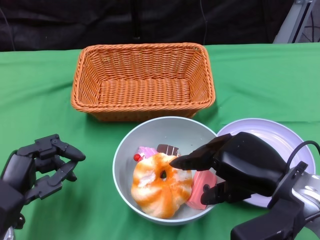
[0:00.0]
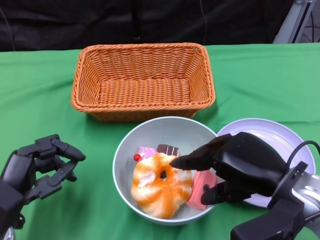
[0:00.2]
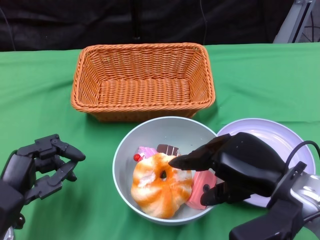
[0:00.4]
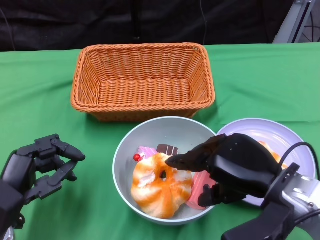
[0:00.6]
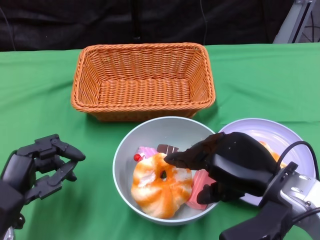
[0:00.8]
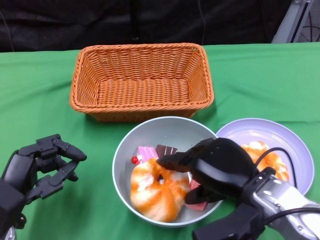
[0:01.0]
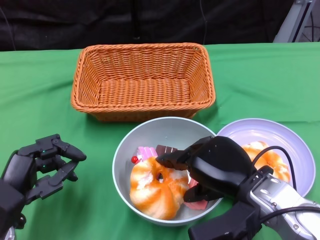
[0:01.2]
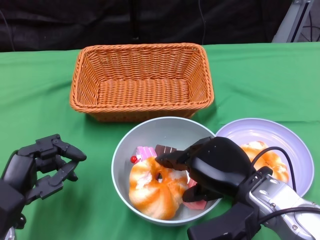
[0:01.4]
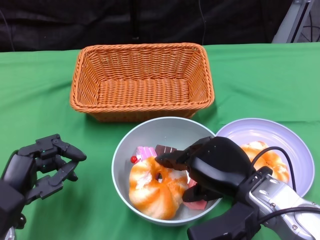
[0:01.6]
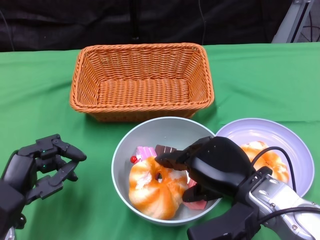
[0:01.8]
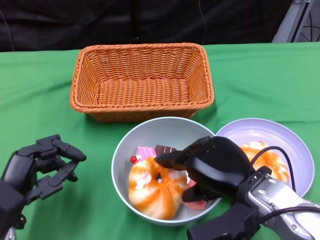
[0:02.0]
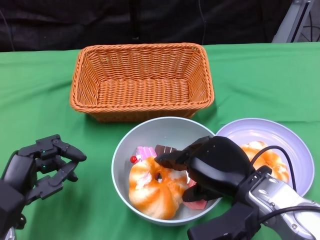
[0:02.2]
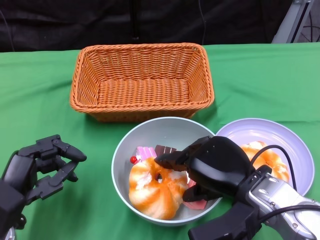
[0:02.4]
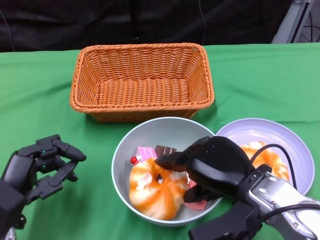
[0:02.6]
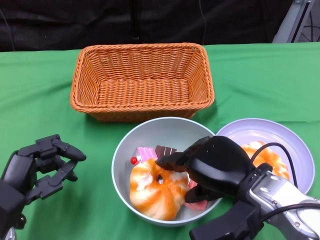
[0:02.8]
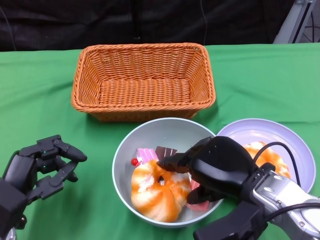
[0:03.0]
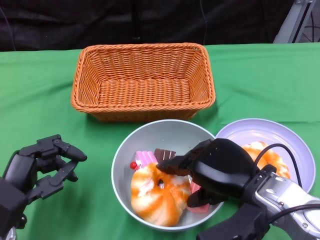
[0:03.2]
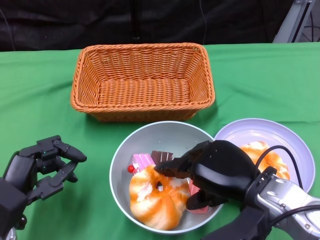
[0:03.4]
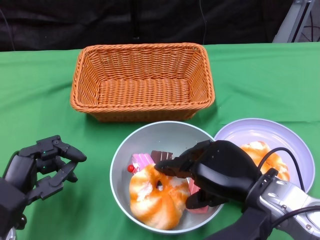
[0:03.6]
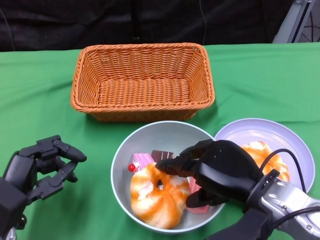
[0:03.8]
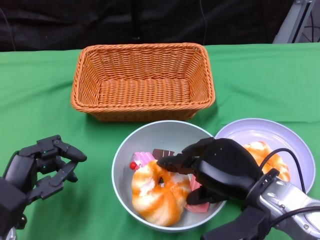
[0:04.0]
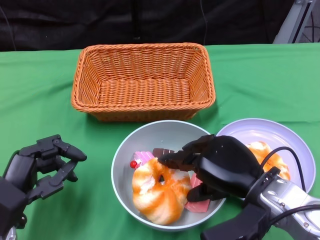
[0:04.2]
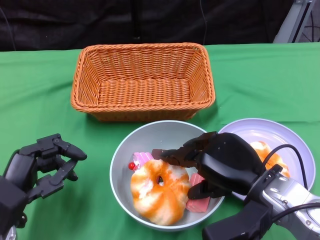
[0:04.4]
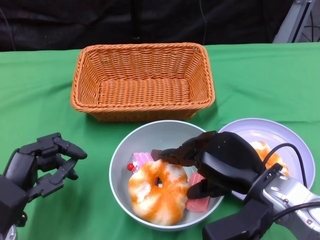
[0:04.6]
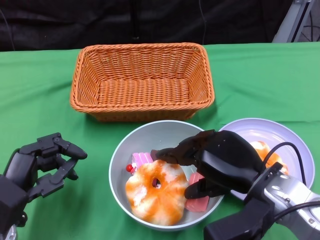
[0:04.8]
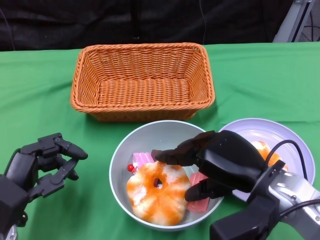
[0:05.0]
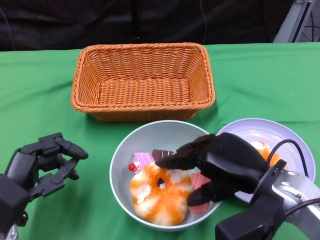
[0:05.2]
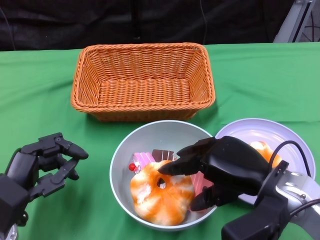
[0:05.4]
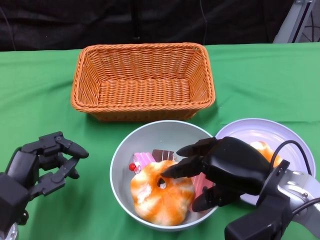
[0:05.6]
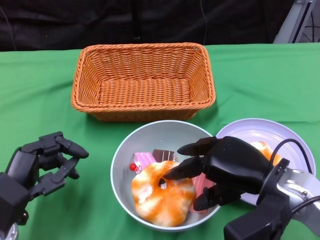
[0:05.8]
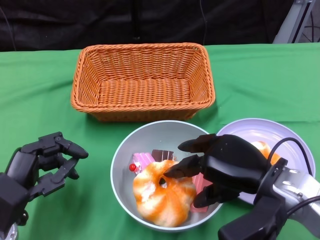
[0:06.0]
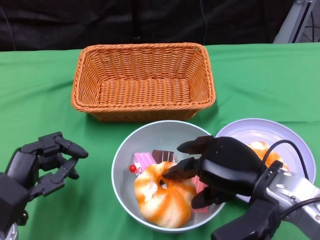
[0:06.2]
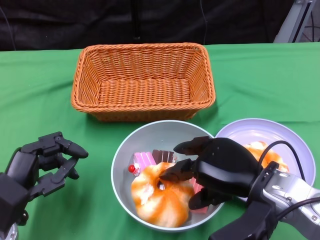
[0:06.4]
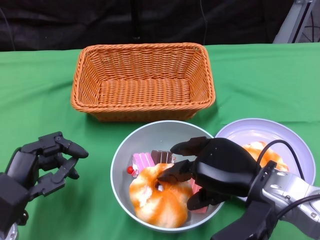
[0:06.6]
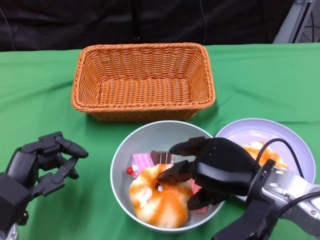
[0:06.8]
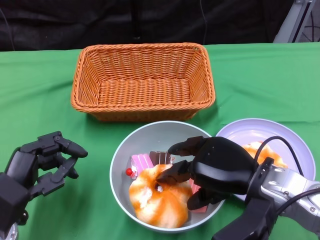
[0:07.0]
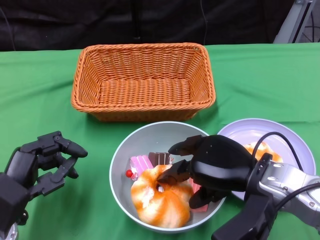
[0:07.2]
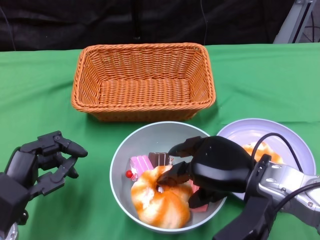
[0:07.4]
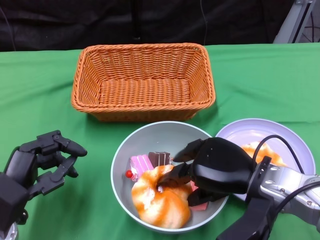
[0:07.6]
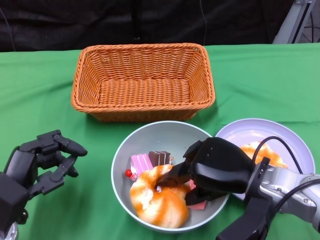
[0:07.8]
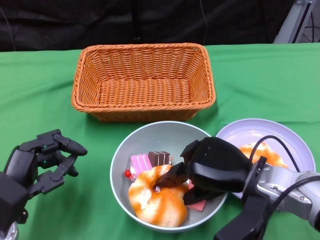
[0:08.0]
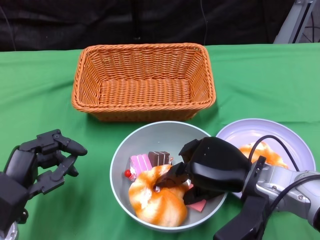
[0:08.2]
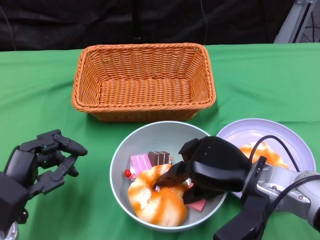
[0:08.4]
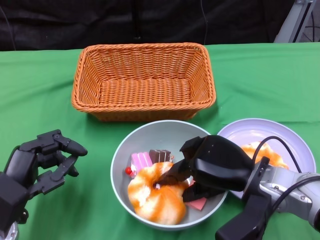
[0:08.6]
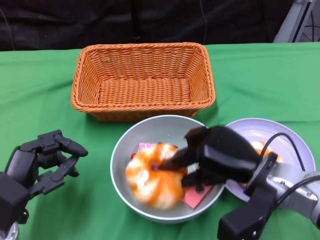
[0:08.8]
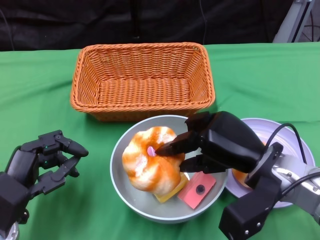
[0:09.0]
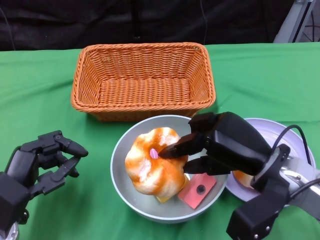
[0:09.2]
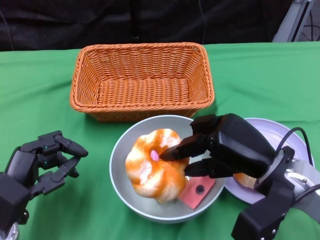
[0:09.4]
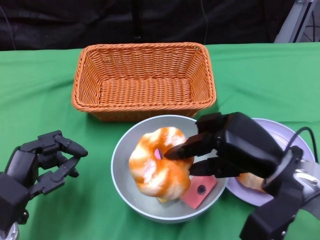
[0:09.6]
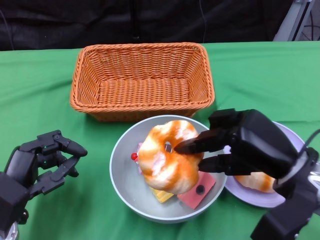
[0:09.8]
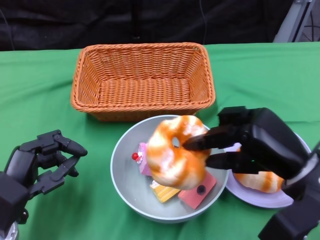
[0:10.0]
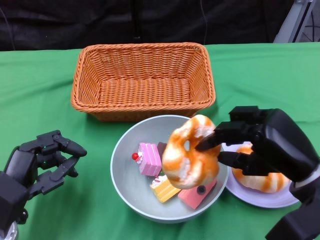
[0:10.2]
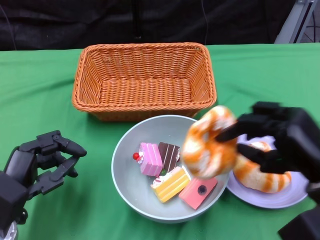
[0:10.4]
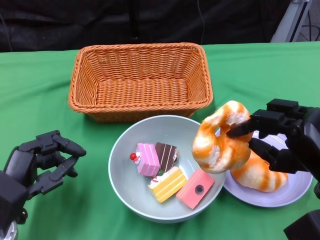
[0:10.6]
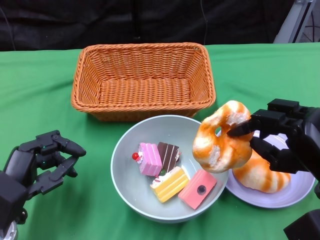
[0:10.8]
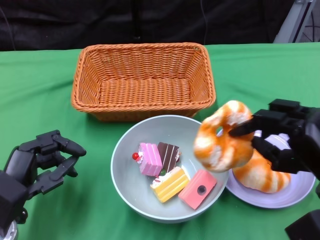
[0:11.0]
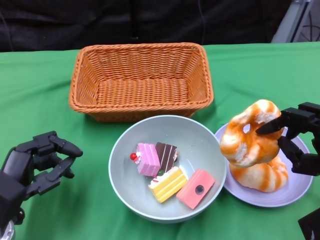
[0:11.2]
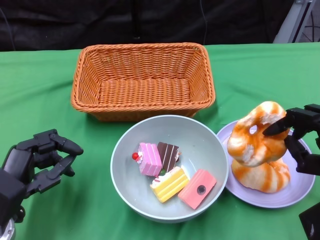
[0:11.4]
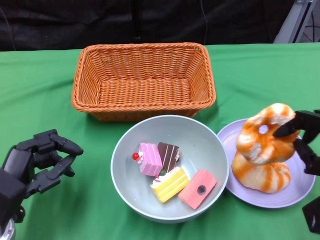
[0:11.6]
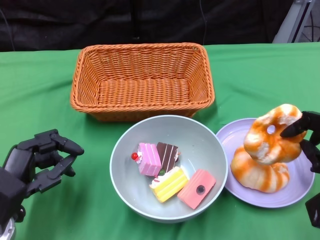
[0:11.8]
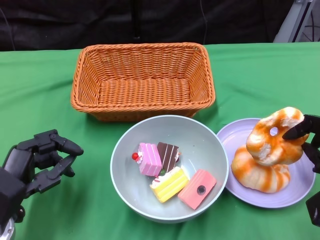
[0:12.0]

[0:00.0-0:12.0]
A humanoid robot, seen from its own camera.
0:00.0 to 0:01.6: The right hand ends up about 5 cm from where it was.
0:01.6 to 0:03.0: Both hands stay about where they are.
0:03.0 to 0:07.6: The hands move only a little.
0:09.0 to 0:10.4: The right hand shifts about 5 cm to the right.
0:10.4 to 0:12.0: The right hand moves to the right, roughly 5 cm.

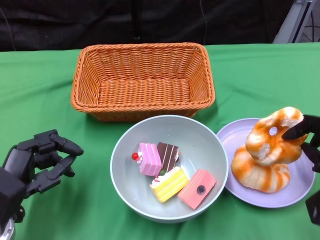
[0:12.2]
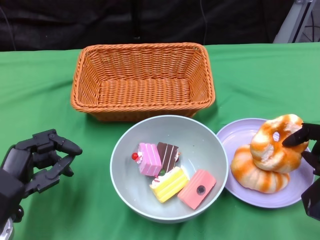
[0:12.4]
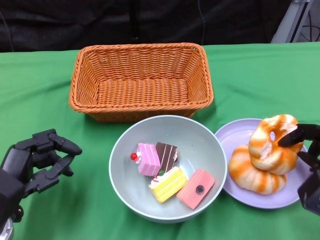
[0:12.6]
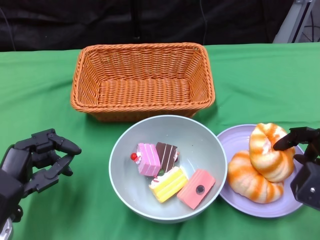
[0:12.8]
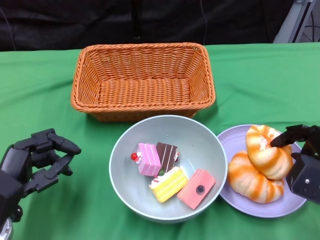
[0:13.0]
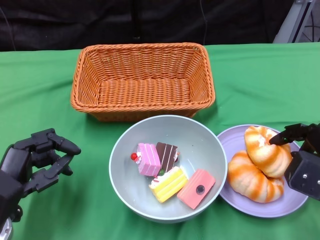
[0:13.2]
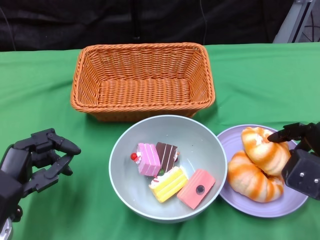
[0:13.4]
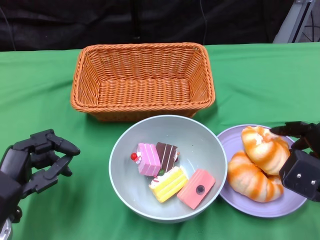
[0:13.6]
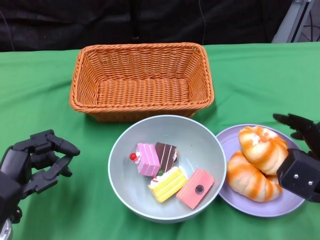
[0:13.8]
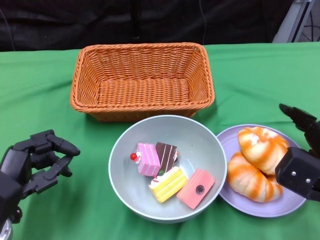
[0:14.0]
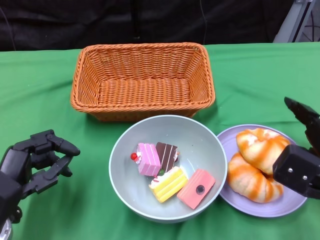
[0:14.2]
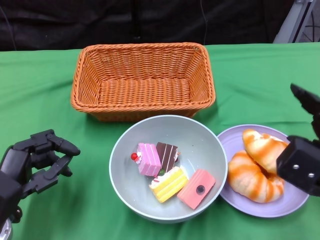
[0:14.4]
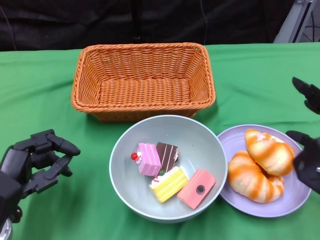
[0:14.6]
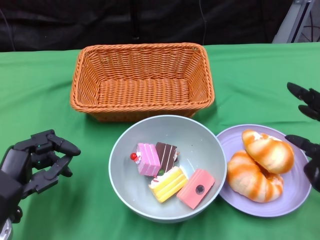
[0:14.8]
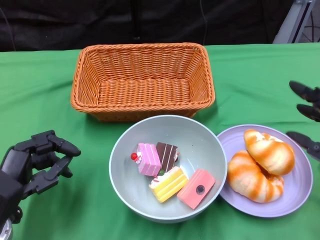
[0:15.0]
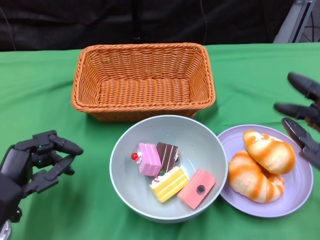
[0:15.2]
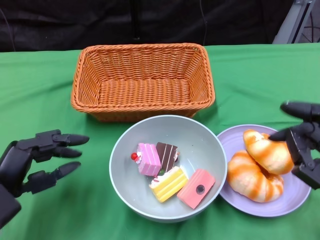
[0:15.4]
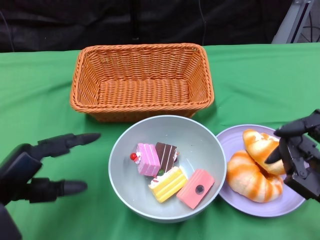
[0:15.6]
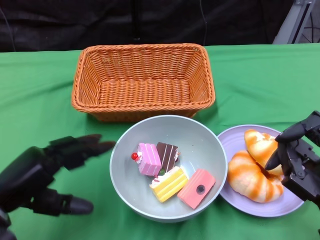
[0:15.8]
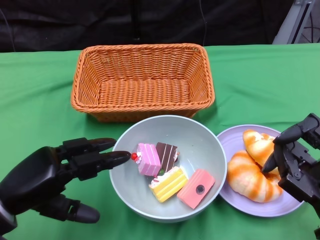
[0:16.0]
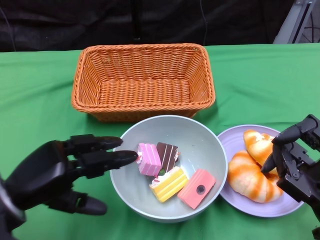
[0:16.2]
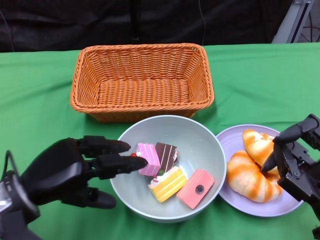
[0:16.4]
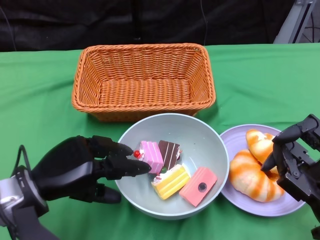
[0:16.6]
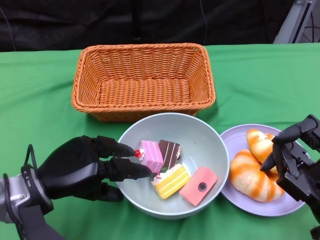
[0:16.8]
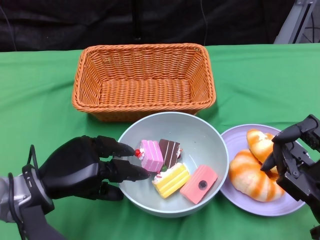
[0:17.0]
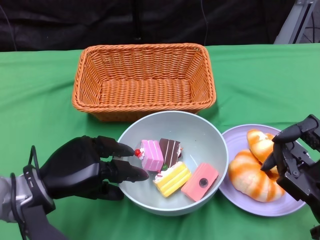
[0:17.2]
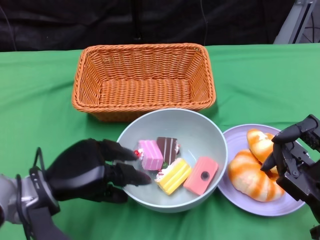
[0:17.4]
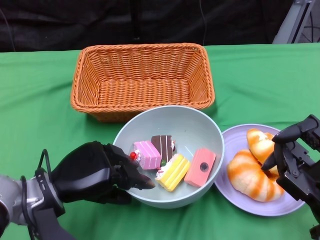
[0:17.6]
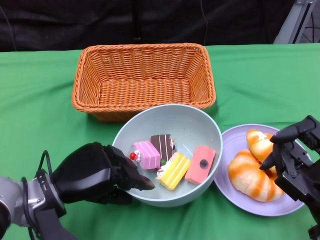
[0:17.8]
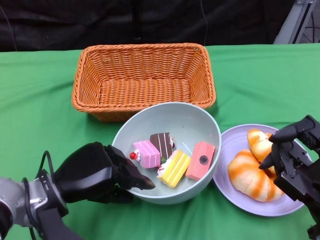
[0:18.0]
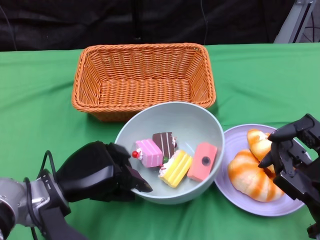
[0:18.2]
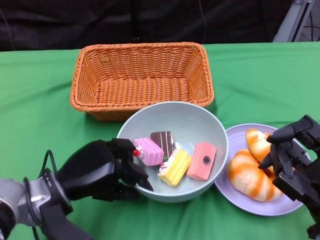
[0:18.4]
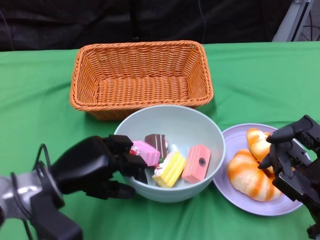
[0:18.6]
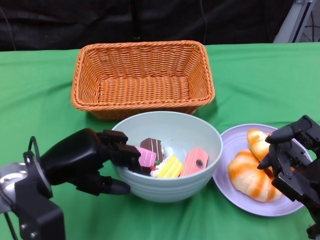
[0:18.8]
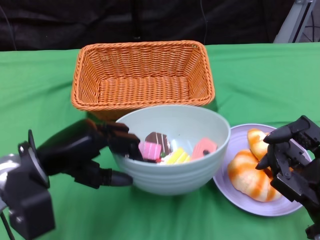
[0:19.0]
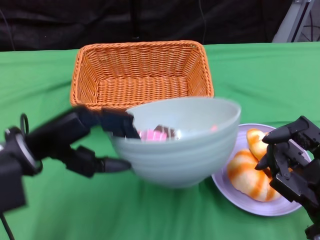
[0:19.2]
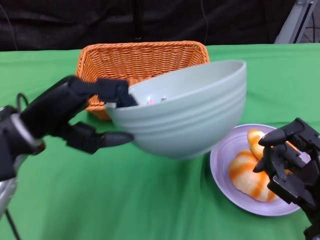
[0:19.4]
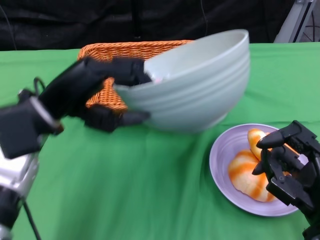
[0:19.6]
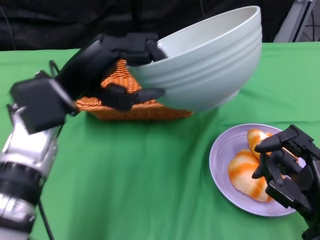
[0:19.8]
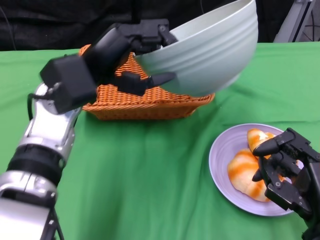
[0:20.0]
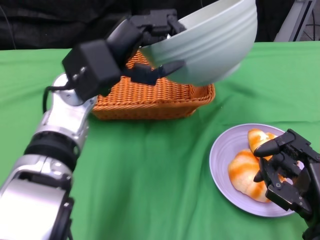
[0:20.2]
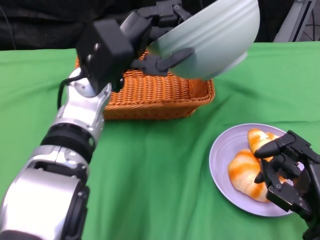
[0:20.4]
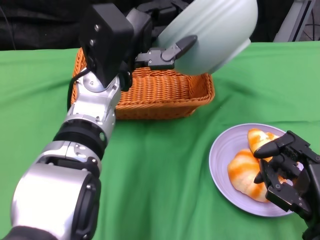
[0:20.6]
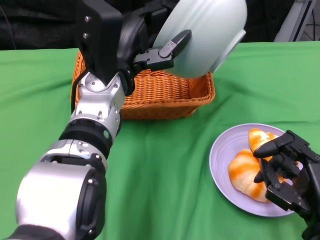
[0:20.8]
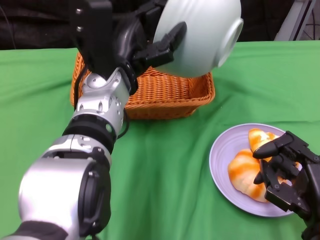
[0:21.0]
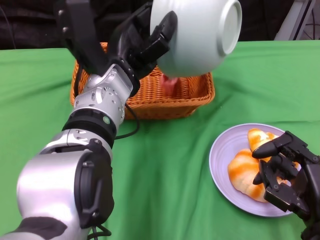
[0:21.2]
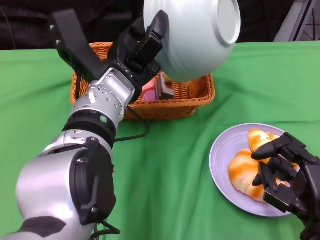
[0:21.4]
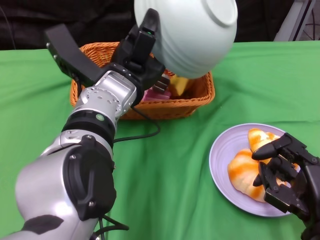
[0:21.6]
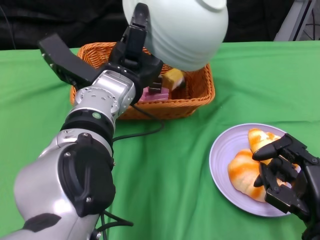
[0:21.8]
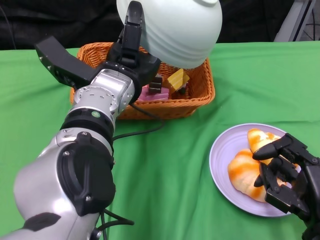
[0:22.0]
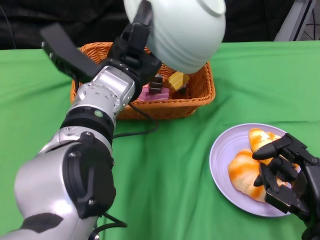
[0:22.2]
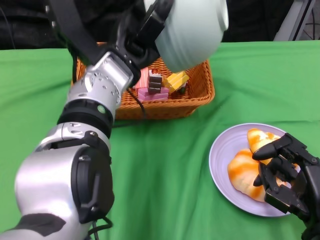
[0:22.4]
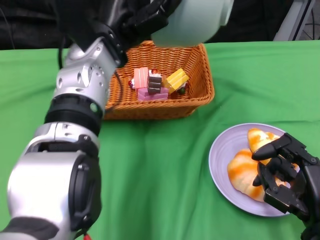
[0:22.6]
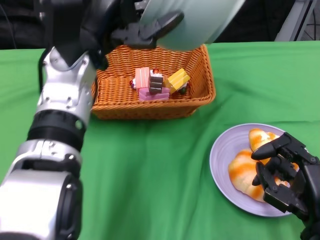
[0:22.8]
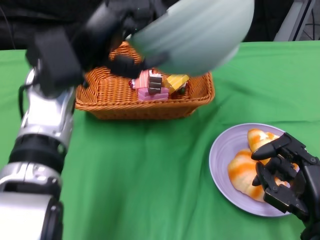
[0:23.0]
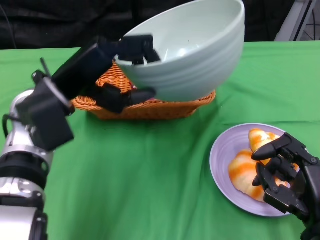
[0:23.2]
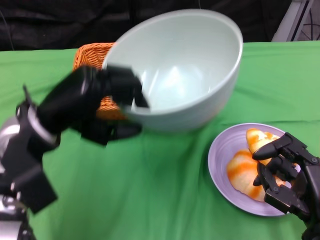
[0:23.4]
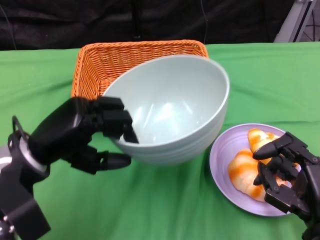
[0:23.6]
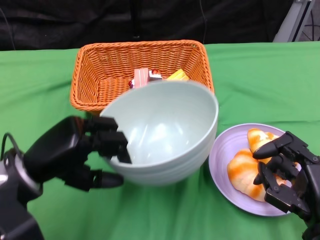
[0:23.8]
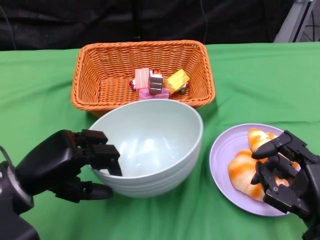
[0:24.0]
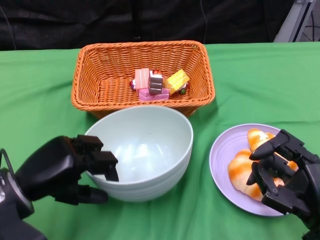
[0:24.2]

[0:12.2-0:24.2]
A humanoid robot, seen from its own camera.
Step, 0:12.2 to 0:14.4: Pick up the bread with the right gripper and place it on the plate.
Step, 0:14.6 to 0:18.4: Grasp the bowl with the left gripper.
Step, 0:18.8 to 0:22.2: Pour the cake into the basket with the left gripper.
0:13.8 to 0:15.2: The right hand heads backward and upward, covering about 10 cm.
0:15.2 to 0:16.6: The left hand shifts by about 5 cm.
0:18.2 to 0:19.8: The left hand shifts some 15 cm upward.
0:19.8 to 0:21.2: The left hand is displaced to the right by some 10 cm.
0:22.6 to 0:24.2: The left hand moves downward, to the left and backward, roughly 25 cm.
